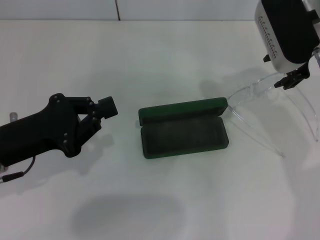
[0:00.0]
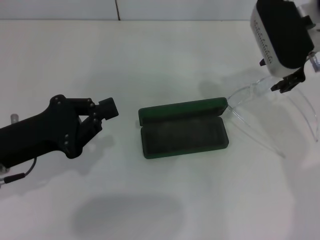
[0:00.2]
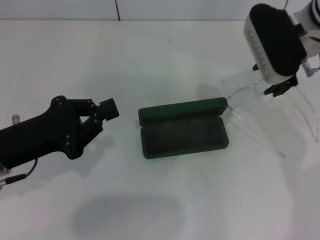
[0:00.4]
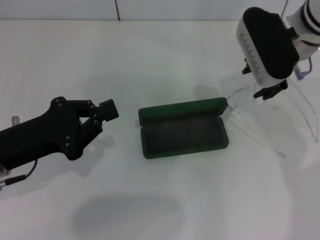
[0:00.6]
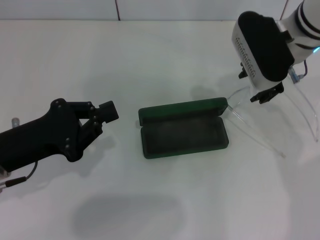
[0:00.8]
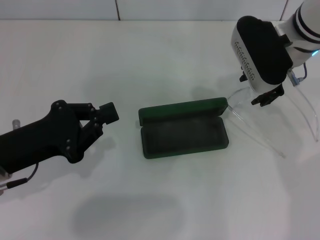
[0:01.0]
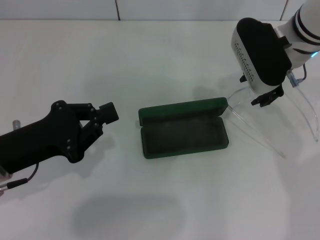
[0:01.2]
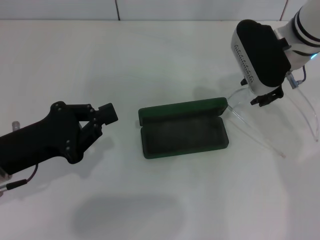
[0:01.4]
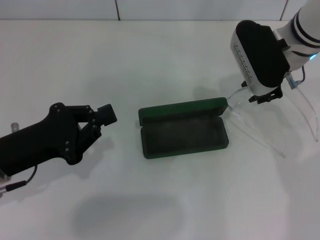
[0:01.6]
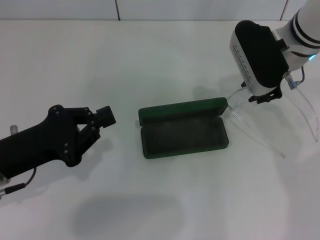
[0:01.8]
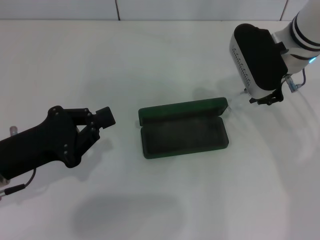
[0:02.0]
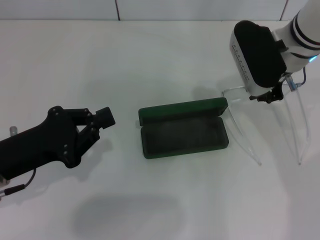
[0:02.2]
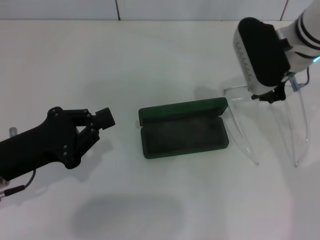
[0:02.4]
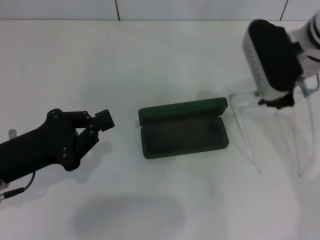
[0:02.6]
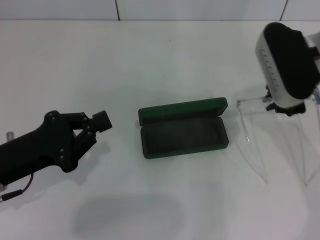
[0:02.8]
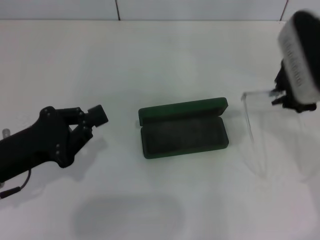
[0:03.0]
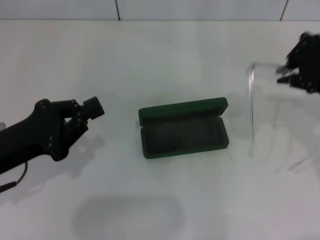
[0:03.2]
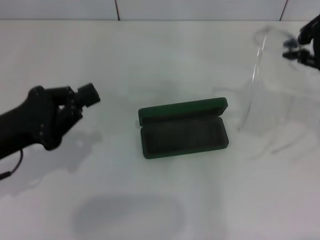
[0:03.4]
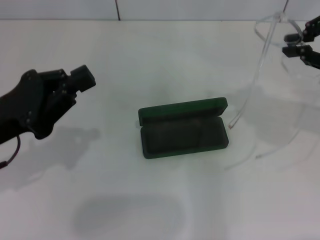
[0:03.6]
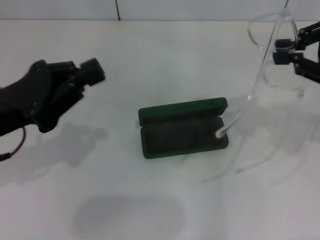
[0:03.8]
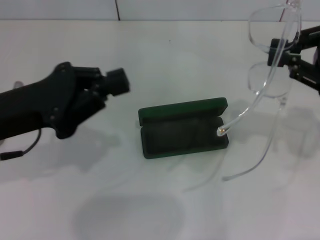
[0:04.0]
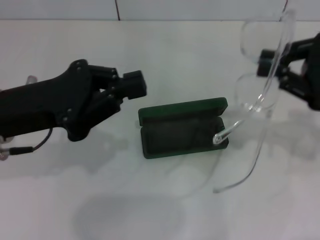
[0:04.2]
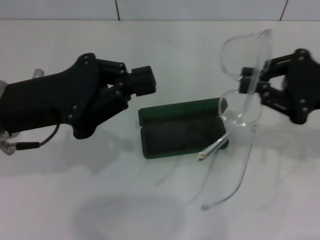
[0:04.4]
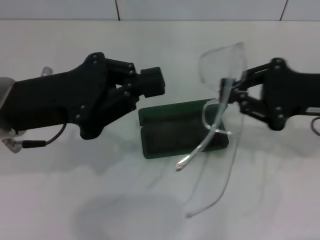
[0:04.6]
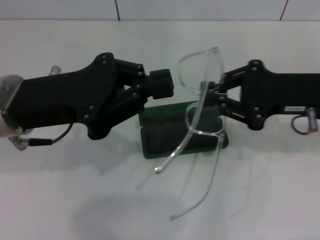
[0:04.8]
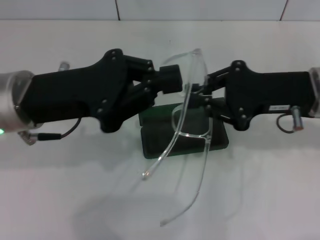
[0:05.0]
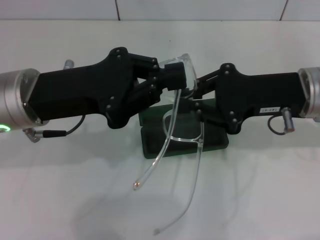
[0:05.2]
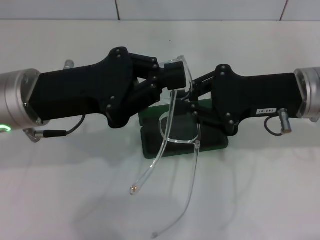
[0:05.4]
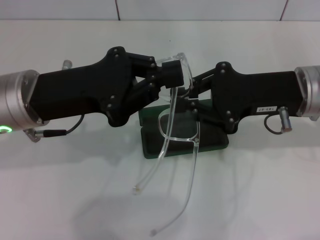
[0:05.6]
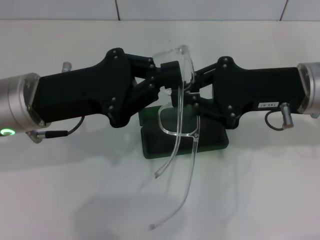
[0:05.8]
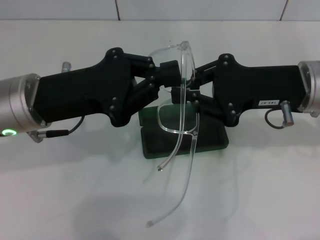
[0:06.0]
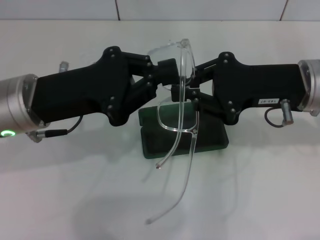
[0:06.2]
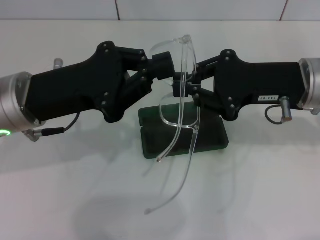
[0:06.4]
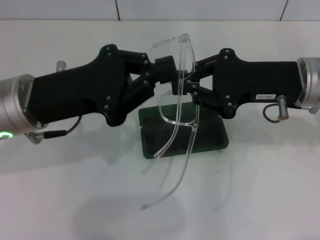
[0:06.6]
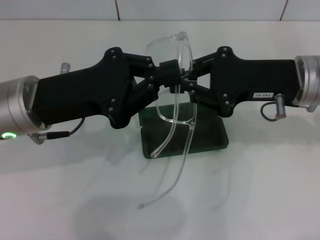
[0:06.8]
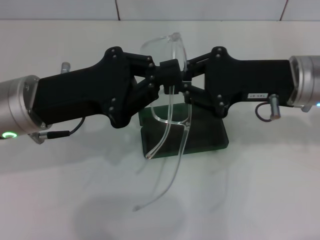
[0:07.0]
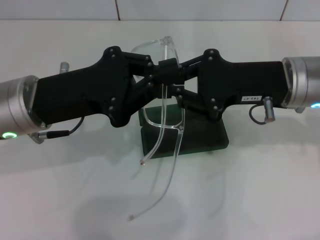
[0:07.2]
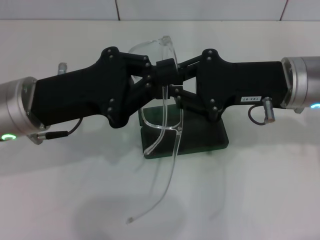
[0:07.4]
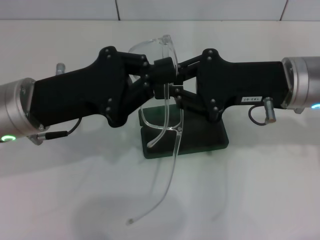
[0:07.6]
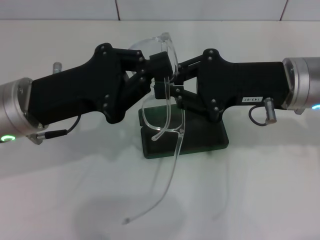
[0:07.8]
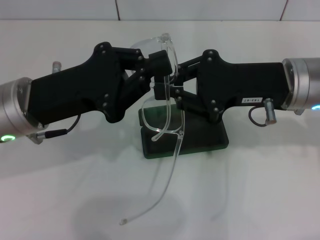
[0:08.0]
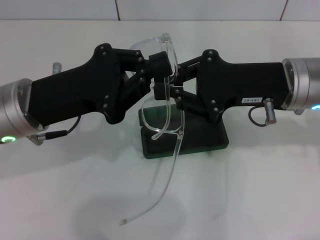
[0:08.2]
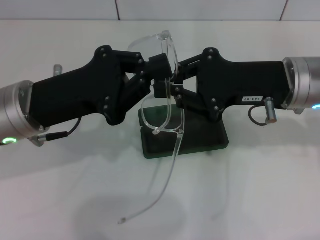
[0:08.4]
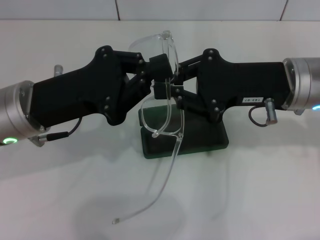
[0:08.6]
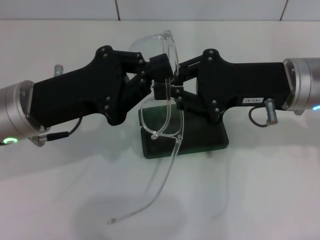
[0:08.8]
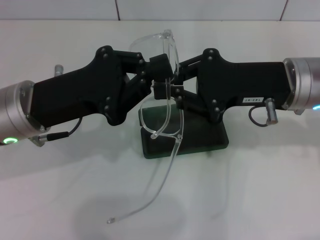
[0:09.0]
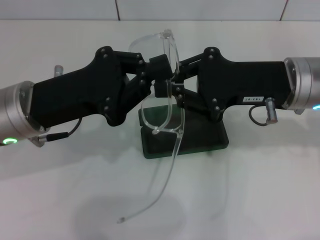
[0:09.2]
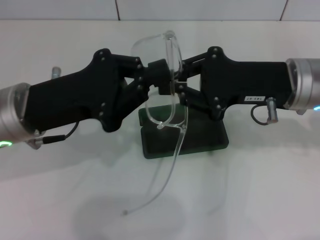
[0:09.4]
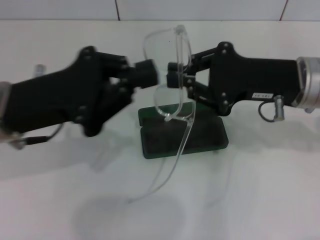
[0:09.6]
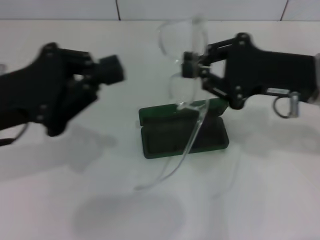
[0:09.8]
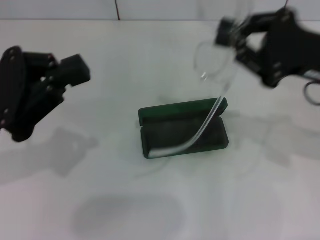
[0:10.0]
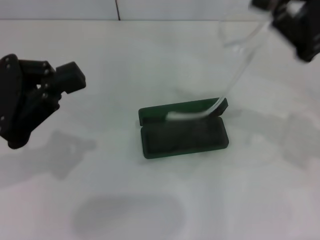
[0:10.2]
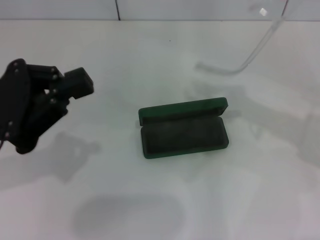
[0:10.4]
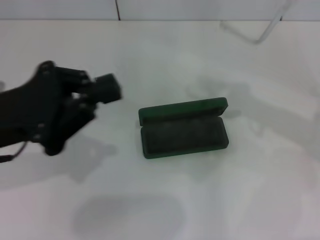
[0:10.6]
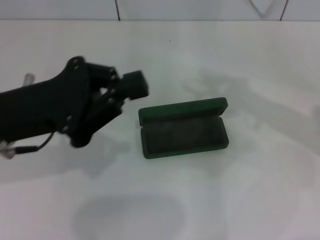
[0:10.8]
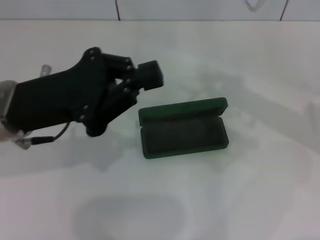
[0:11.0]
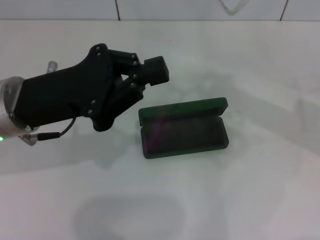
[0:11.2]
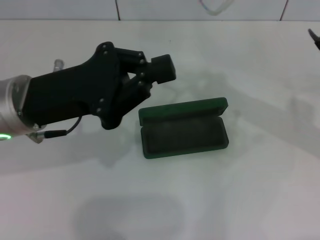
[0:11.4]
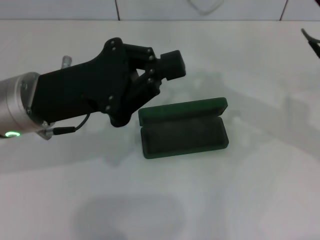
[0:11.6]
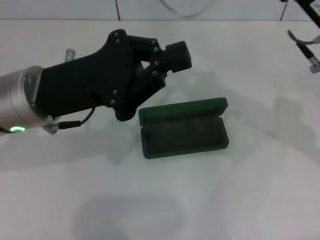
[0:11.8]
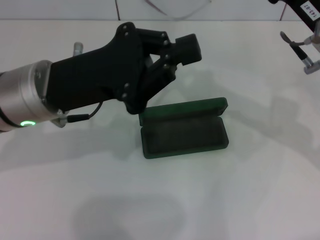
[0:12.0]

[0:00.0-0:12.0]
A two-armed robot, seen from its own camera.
Step, 0:00.0 to 0:02.0: Grab the eyeglass frame with your right hand.
0:00.0 to 0:01.6: The right gripper moves roughly 5 cm.
0:01.6 to 0:03.0: The right gripper is displaced backward by about 5 cm, and closes.
0:03.0 to 0:04.4: The left gripper moves upward, approximately 10 cm, while the right gripper is displaced to the right and backward by about 10 cm.
0:04.4 to 0:06.0: The right gripper travels to the left by approximately 10 cm.
0:06.0 to 0:07.6: The grippers make only small movements.
0:07.6 to 0:09.0: Both grippers stay put.
0:09.0 to 0:10.4: The right gripper shifts approximately 10 cm to the right; the left gripper travels to the left by approximately 5 cm.
0:10.4 to 0:12.0: The left gripper is displaced to the right and forward by about 10 cm. Meanwhile the right gripper is displaced to the left by some 5 cm.

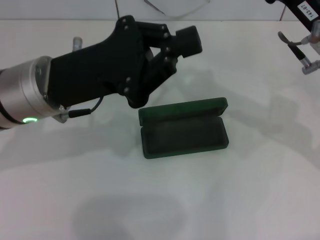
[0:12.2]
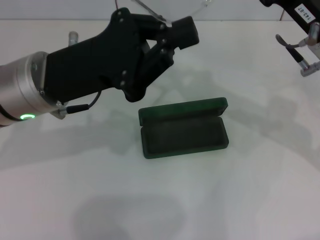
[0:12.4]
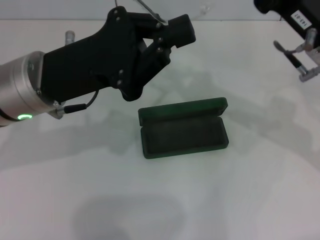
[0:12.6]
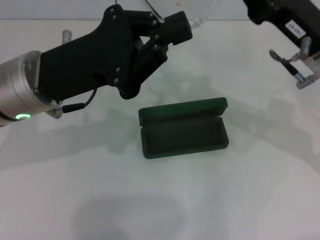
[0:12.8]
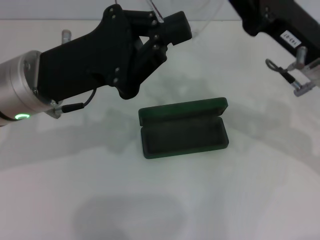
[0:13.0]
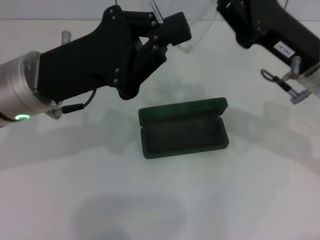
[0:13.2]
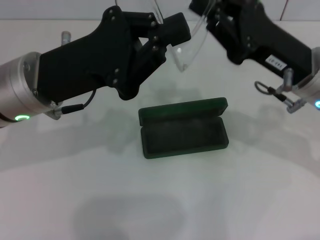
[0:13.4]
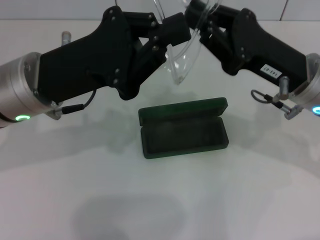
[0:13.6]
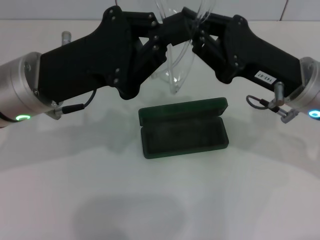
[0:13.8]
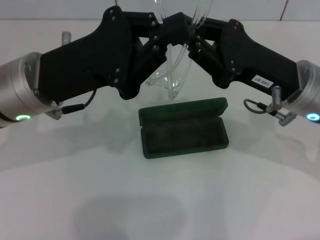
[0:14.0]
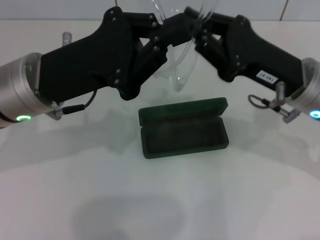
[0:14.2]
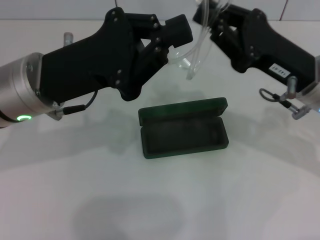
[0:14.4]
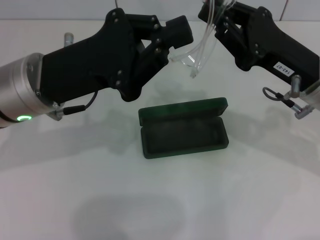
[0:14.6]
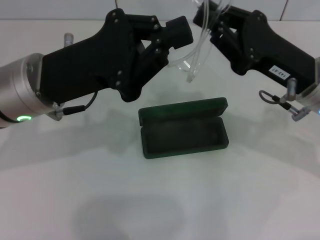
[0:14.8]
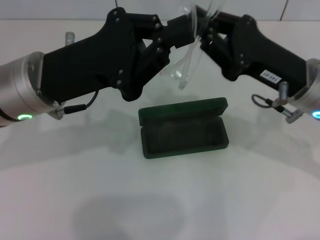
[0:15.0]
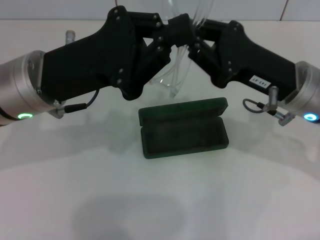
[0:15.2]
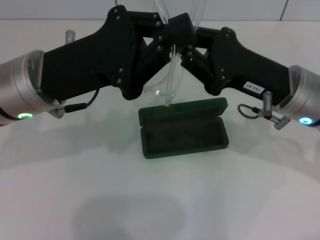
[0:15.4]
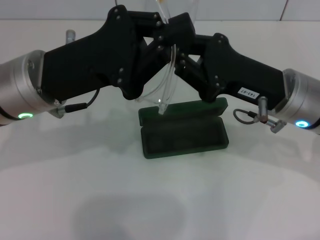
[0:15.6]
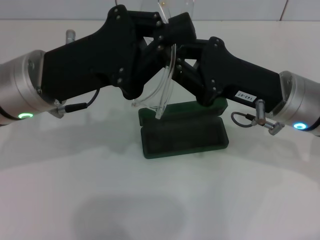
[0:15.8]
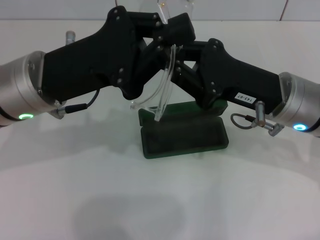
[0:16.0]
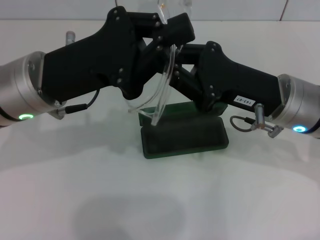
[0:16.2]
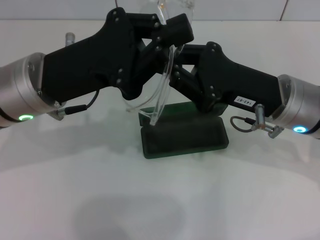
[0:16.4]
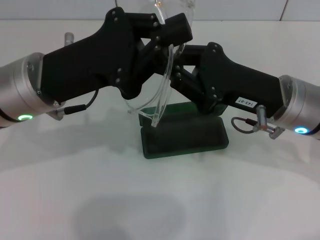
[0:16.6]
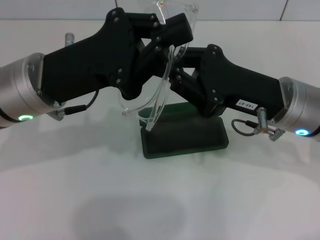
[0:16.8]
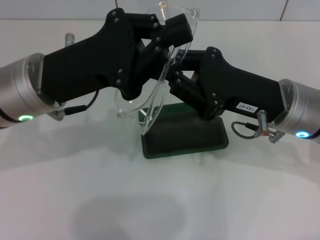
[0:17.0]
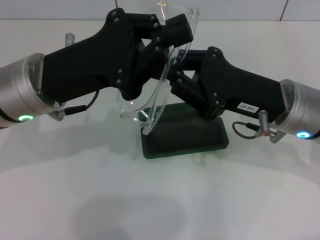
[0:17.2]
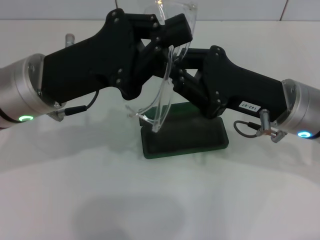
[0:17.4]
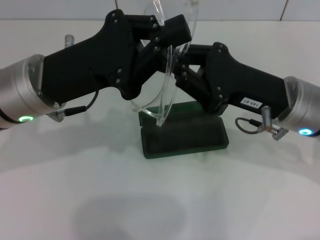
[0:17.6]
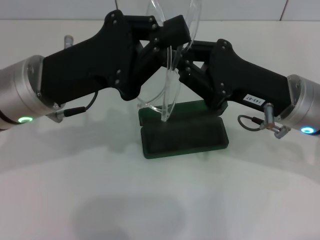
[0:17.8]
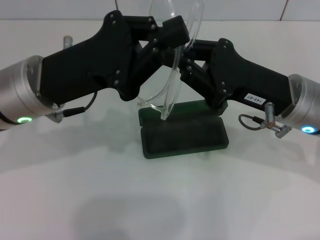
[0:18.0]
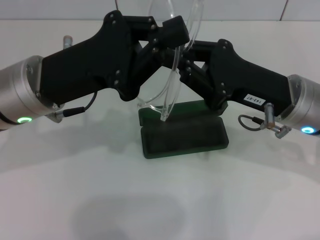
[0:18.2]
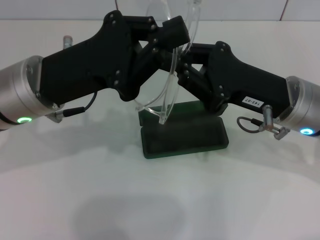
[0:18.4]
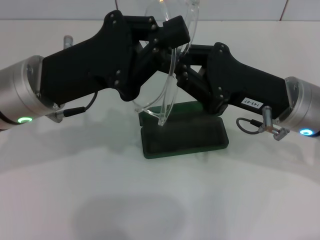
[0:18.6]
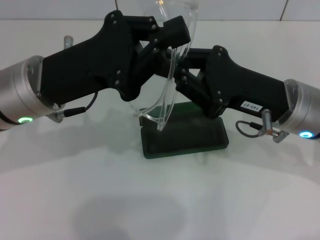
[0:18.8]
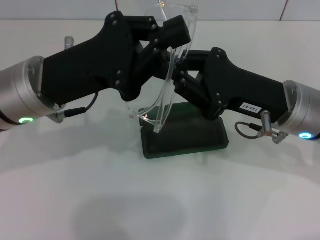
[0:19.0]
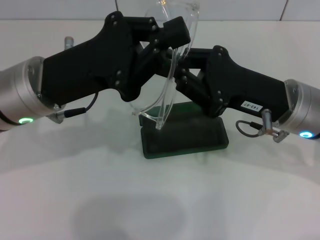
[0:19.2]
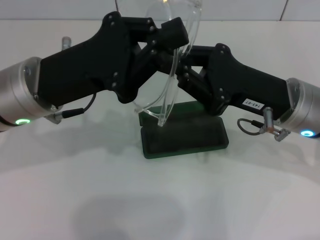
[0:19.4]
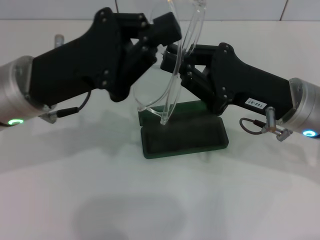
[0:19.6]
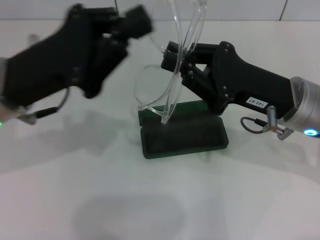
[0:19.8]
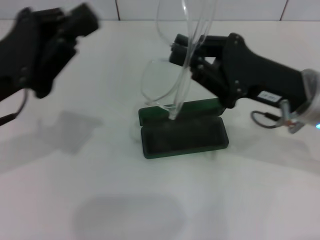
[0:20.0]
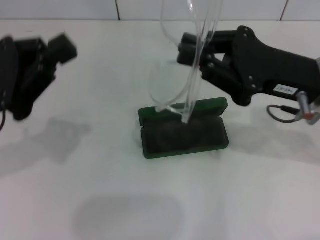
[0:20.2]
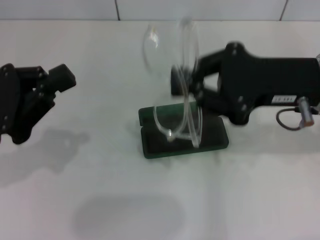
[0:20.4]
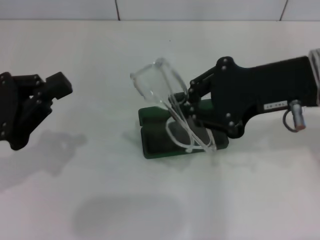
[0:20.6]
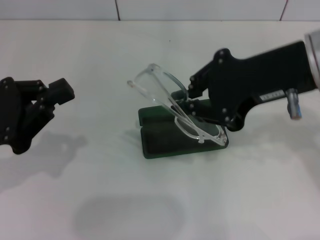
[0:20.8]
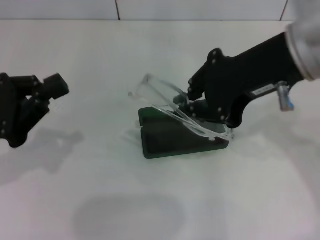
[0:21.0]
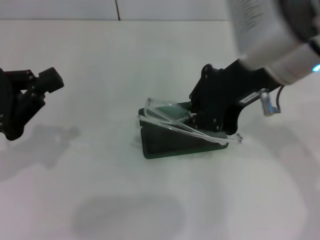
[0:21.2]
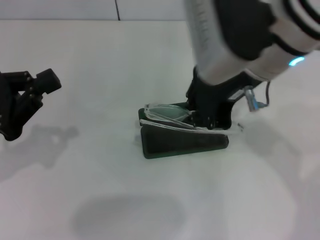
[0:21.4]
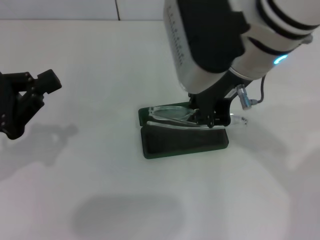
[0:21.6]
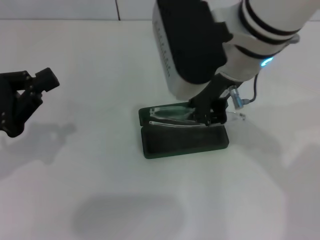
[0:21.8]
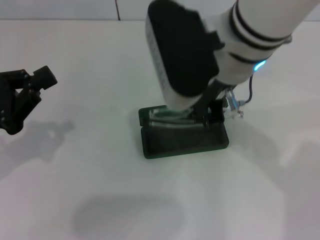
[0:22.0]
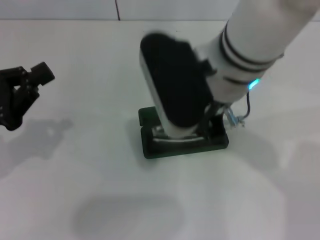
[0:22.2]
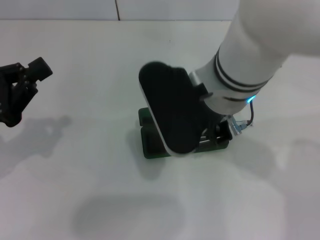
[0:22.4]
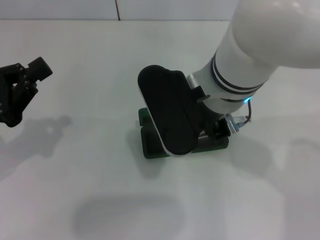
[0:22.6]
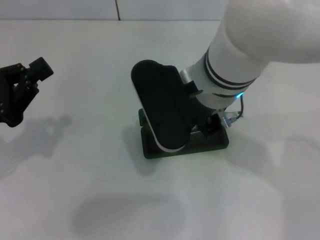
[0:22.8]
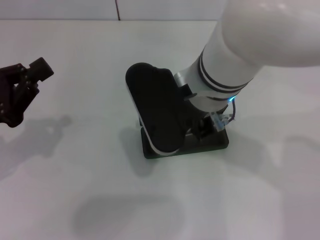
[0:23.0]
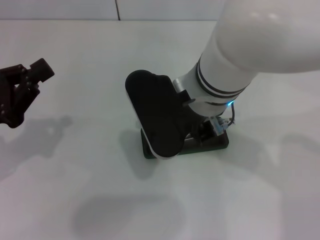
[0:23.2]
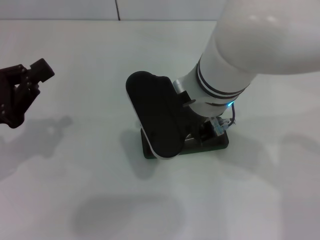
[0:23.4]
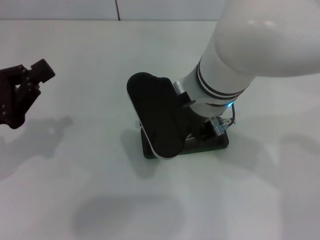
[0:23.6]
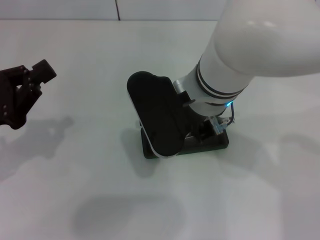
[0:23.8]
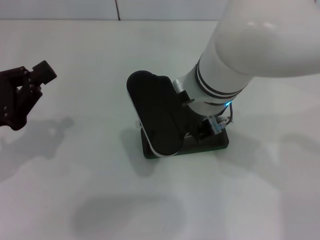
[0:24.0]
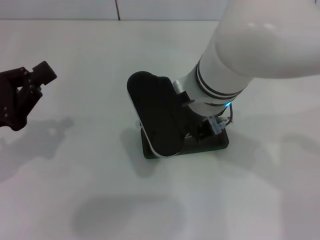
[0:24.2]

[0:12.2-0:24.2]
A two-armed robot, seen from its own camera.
Step, 0:12.2 to 0:19.4: Fold the frame with your left hand.
0:13.8 to 0:16.6: The grippers stay close to where they were, moving slightly.
0:16.6 to 0:18.2: The two grippers keep their place.
0:18.2 to 0:19.8: The grippers stay close to where they were, moving slightly.
0:19.8 to 0:21.2: The right gripper heads upward and to the left, covering approximately 15 cm. Meanwhile the left gripper goes about 10 cm to the left.
0:21.2 to 0:22.6: The right gripper heads to the left and downward, covering some 10 cm.
0:22.6 to 0:24.2: There are only small adjustments of the grippers.
